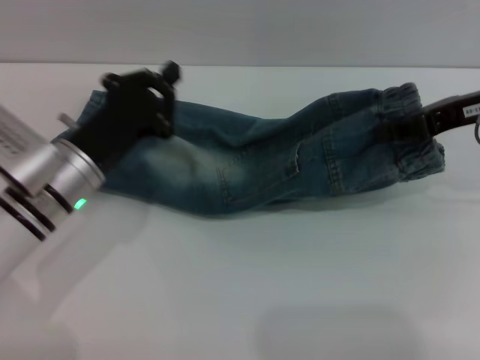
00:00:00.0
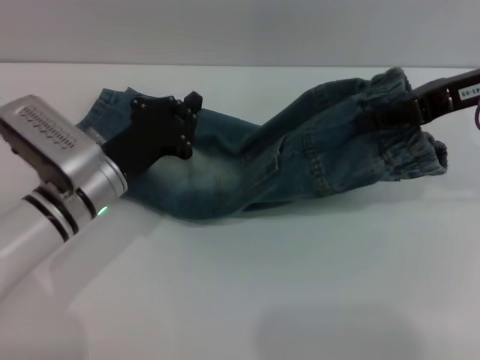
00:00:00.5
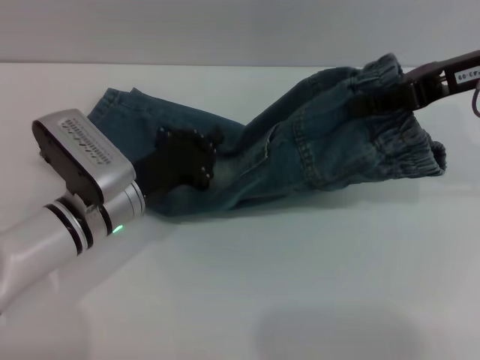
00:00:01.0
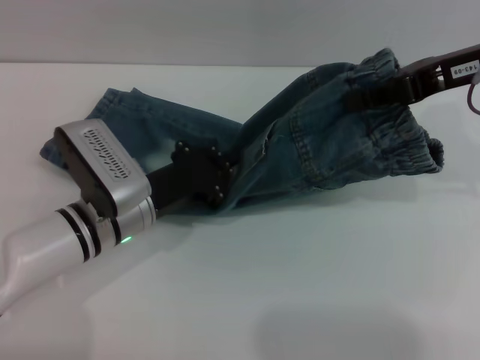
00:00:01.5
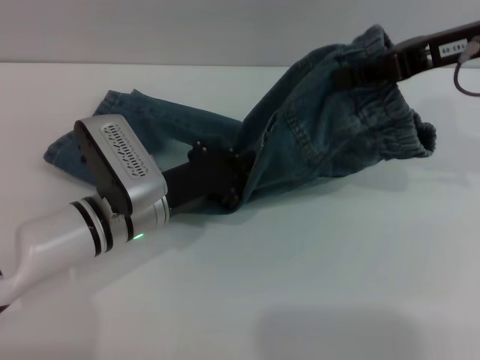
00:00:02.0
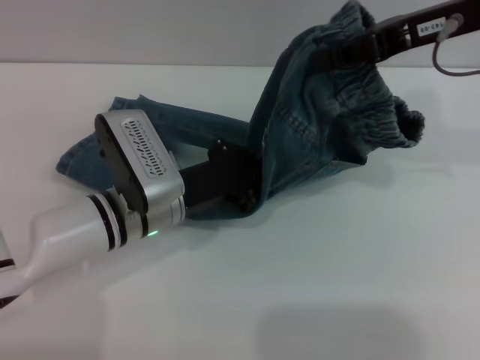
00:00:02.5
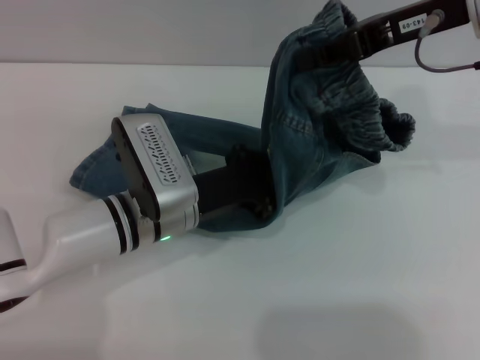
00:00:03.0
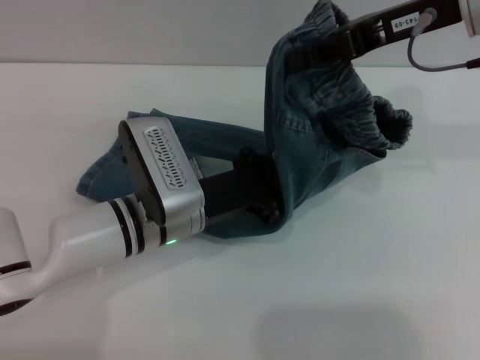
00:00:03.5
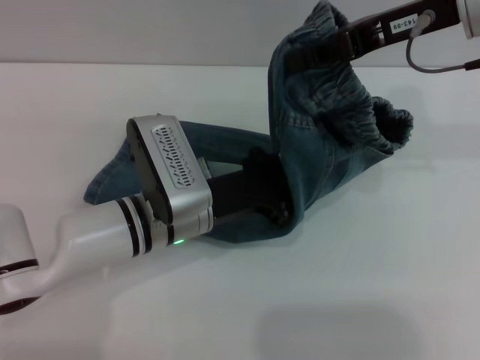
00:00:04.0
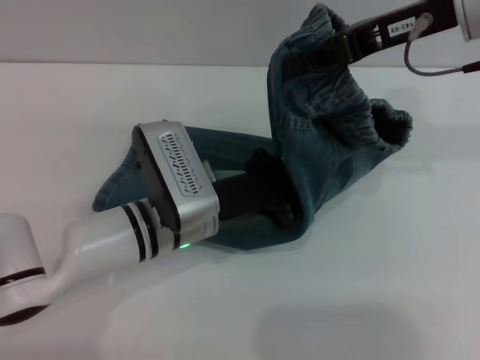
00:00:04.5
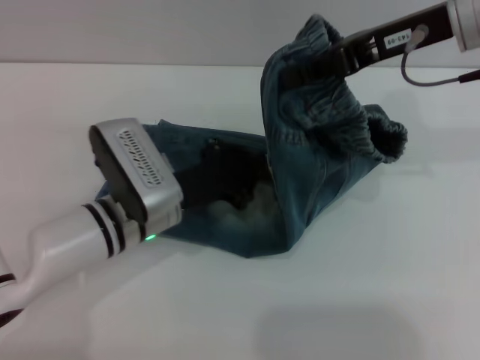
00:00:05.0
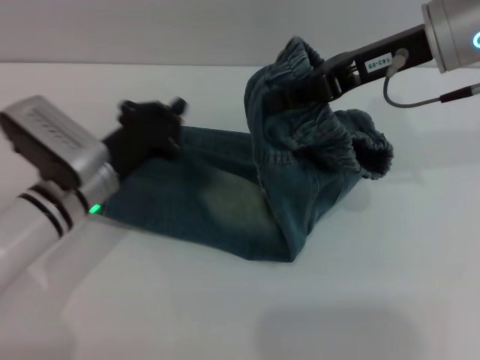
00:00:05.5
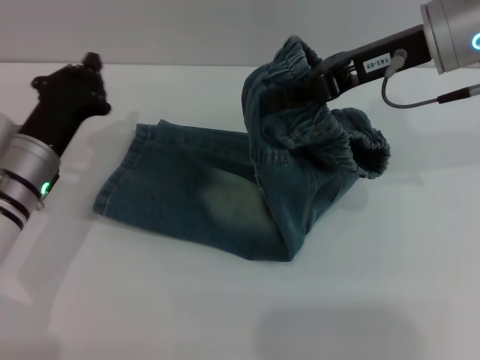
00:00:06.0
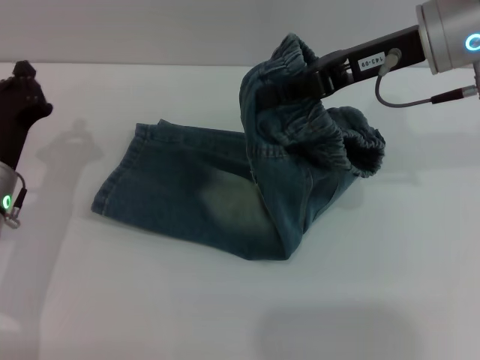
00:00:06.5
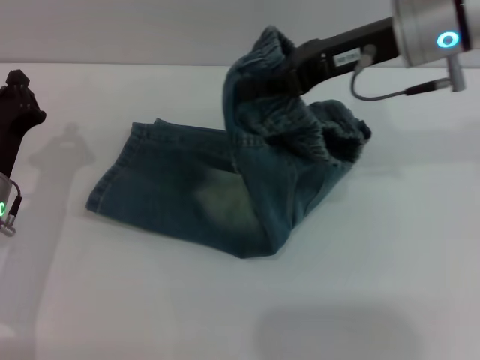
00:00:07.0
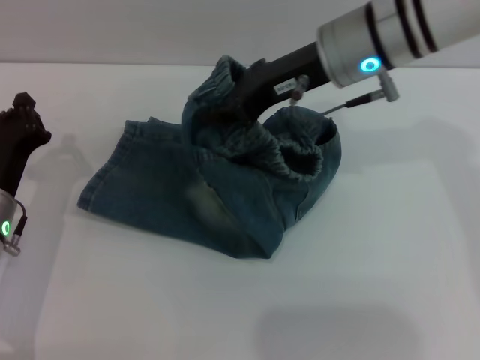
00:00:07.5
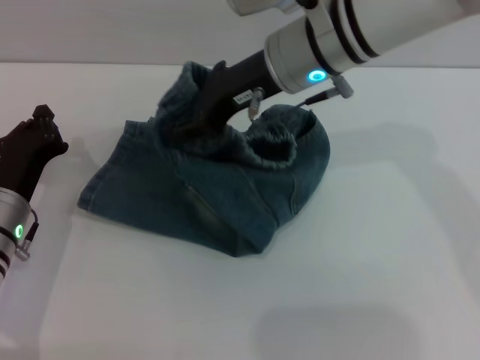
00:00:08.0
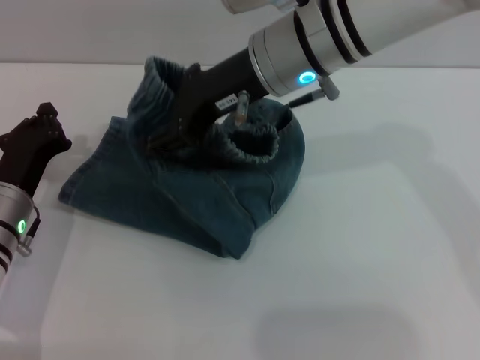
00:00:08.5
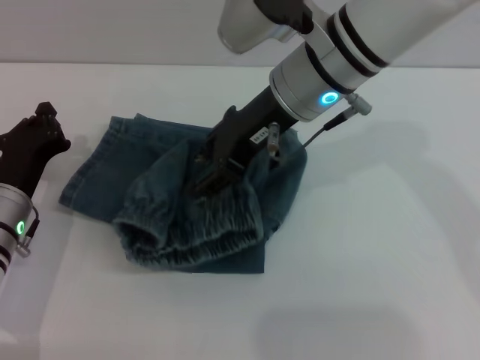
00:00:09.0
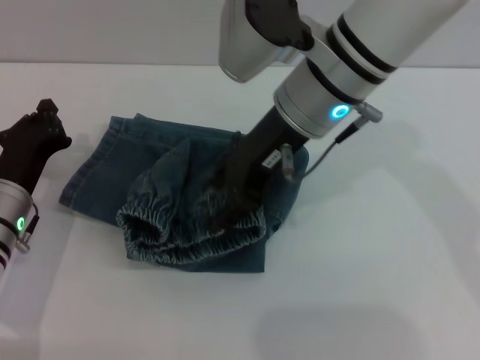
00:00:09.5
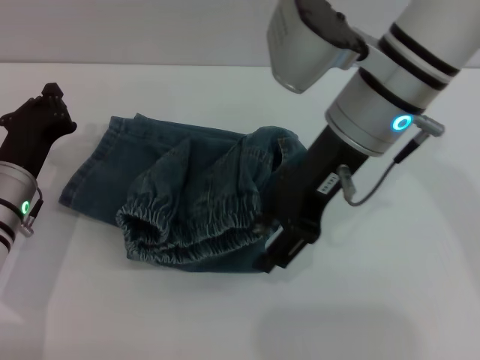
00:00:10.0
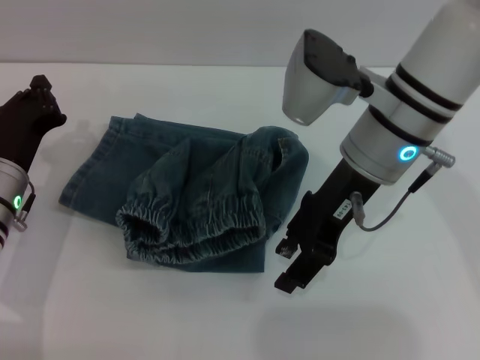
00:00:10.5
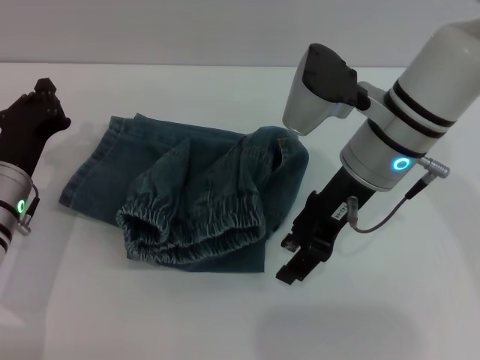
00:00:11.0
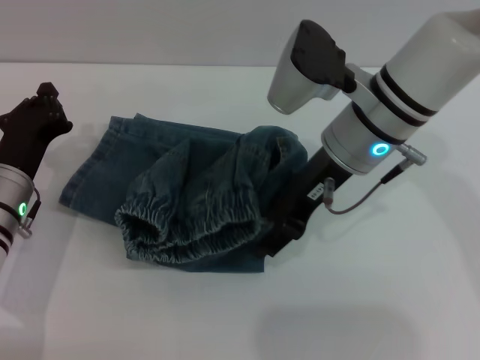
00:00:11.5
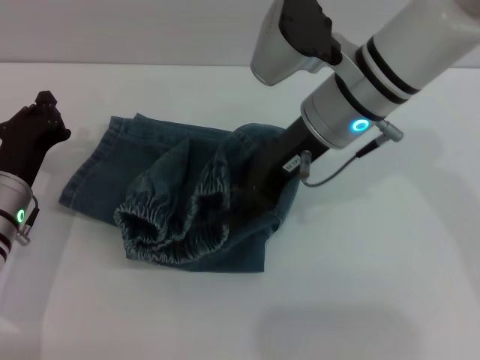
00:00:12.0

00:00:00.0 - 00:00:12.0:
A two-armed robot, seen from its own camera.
00:00:00.0 - 00:00:02.0: The left gripper heads to the right, covering about 5 cm. The right gripper moves upward, roughly 5 cm.
00:00:04.0 - 00:00:06.0: The left gripper is displaced to the left by about 15 cm.
00:00:06.0 - 00:00:08.0: The right gripper shifts roughly 10 cm to the left, and opens. The left gripper moves roughly 5 cm.
00:00:08.0 - 00:00:10.0: The right gripper is displaced backward by some 5 cm, and opens its fingers.

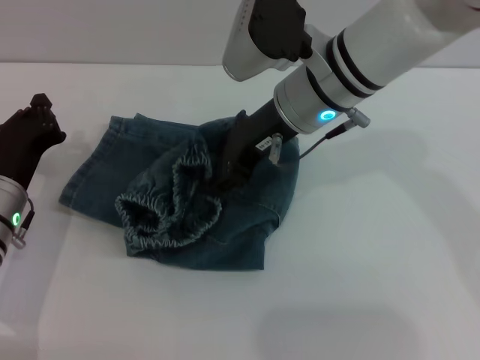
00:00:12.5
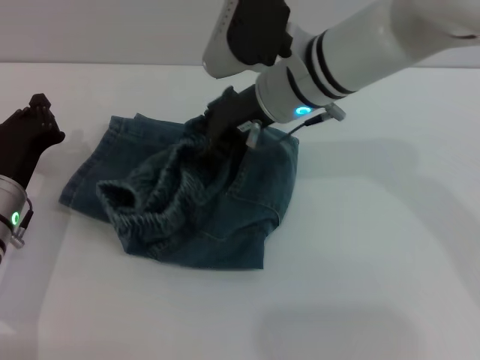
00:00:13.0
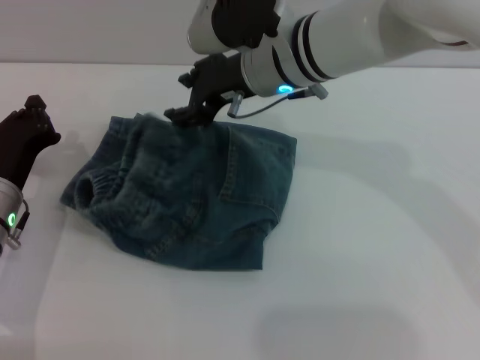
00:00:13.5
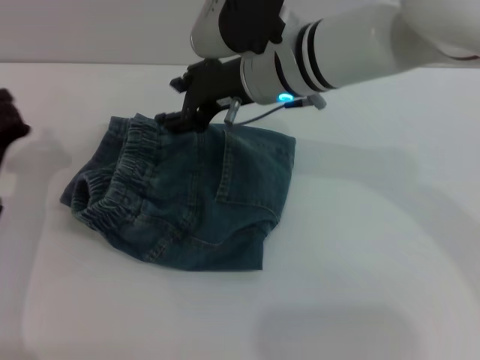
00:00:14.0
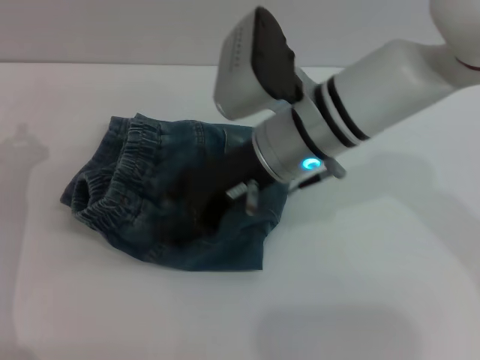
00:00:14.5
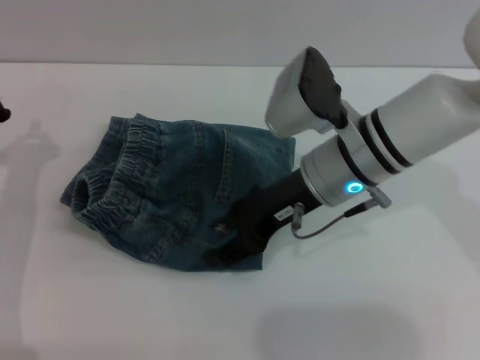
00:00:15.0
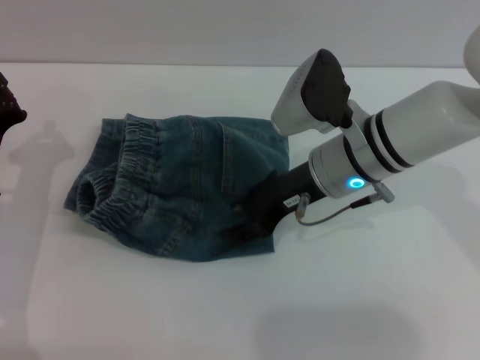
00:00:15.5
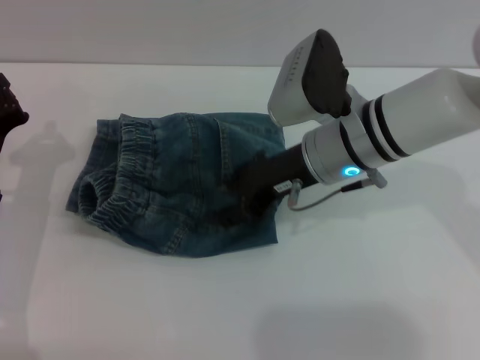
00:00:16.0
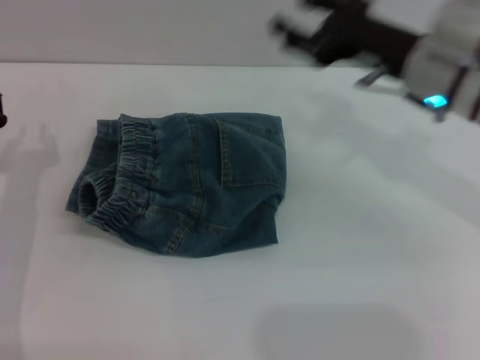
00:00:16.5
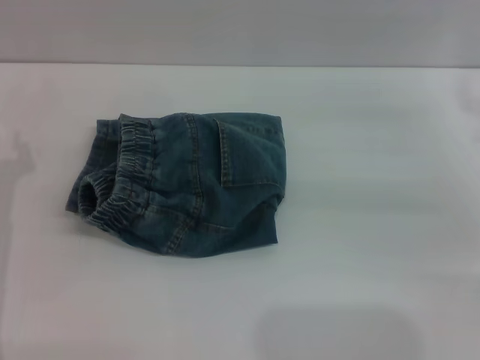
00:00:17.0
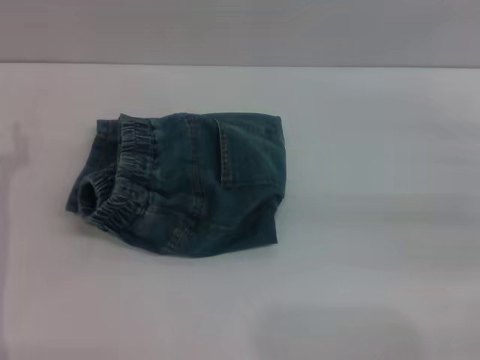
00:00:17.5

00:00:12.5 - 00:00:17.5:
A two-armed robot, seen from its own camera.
Step, 00:00:14.0 - 00:00:16.0: Place the folded trousers onto the center area with the right grippers.
00:00:12.5 - 00:00:15.0: The right gripper ends up about 5 cm from where it was.
00:00:15.0 - 00:00:17.5: The left gripper opens its fingers; the right gripper is displaced to the right by some 25 cm.

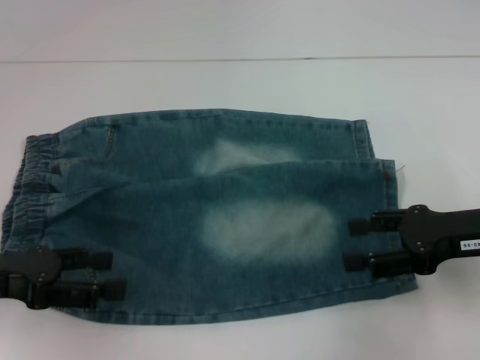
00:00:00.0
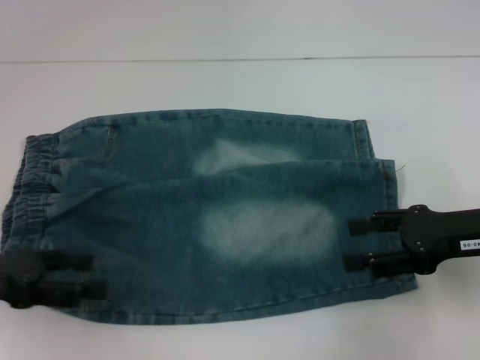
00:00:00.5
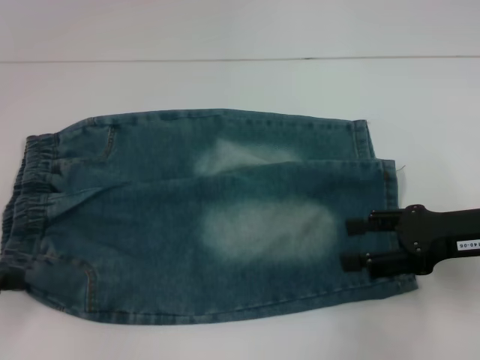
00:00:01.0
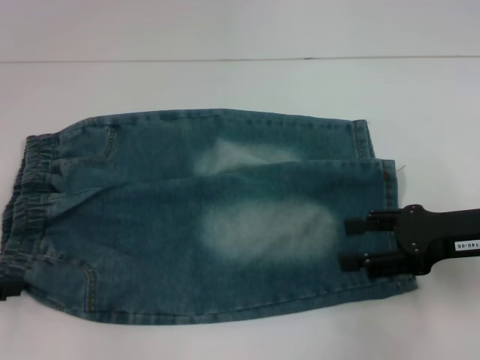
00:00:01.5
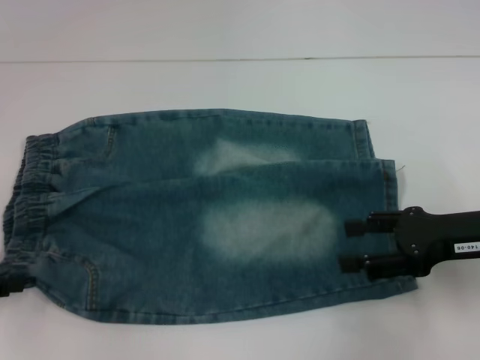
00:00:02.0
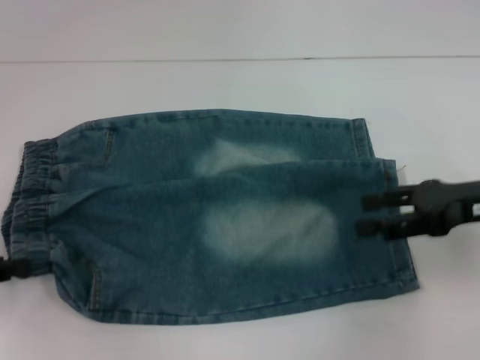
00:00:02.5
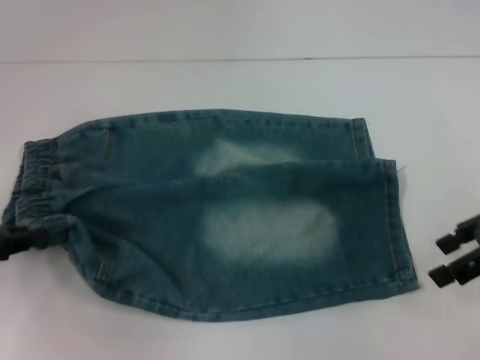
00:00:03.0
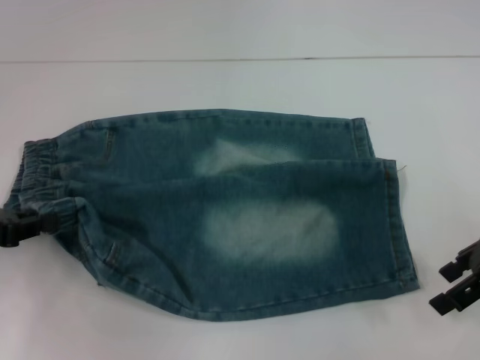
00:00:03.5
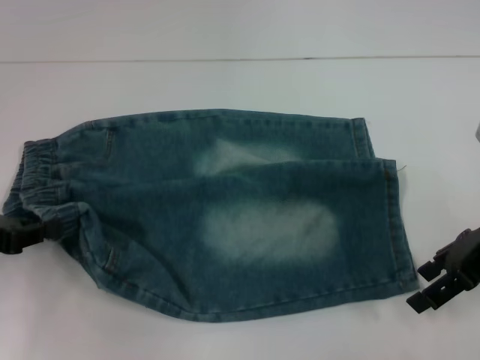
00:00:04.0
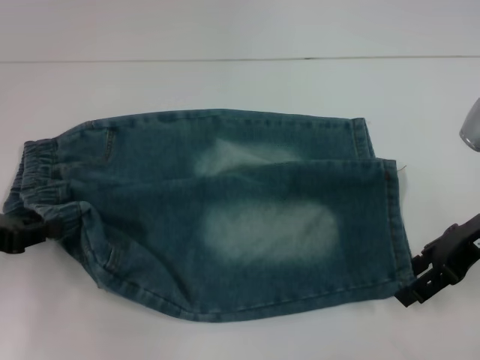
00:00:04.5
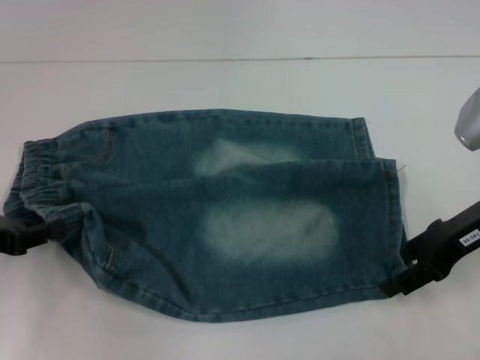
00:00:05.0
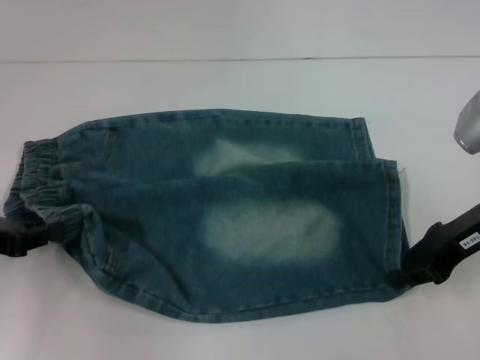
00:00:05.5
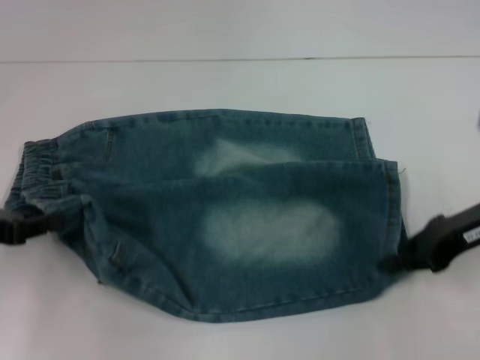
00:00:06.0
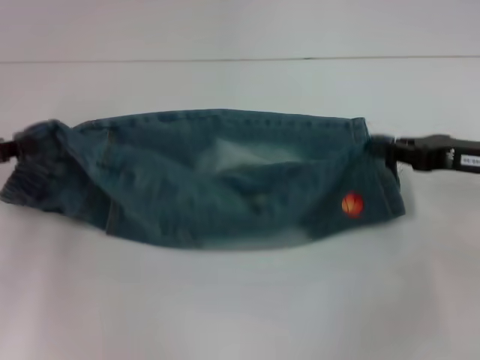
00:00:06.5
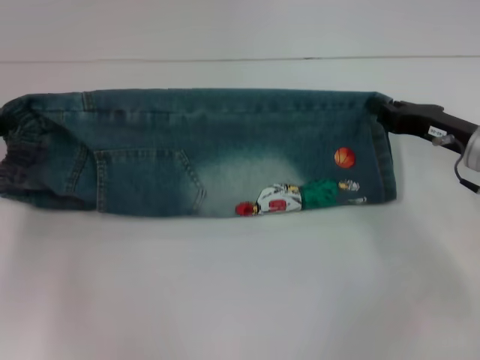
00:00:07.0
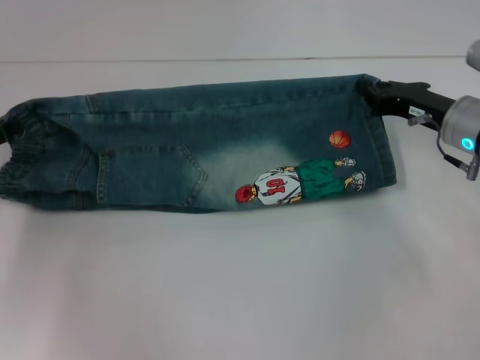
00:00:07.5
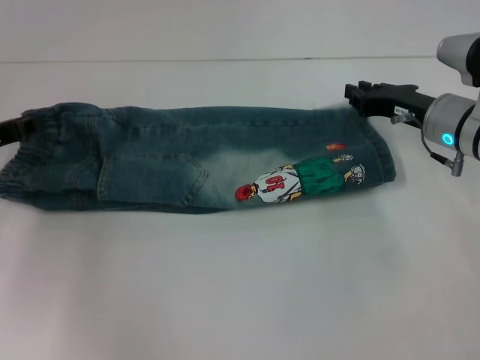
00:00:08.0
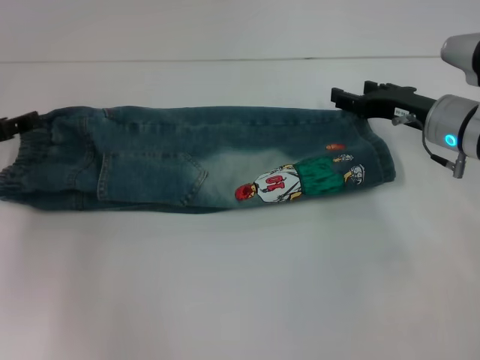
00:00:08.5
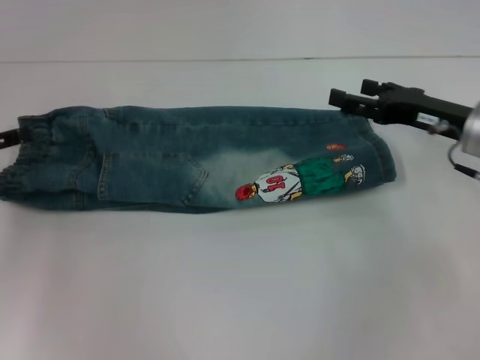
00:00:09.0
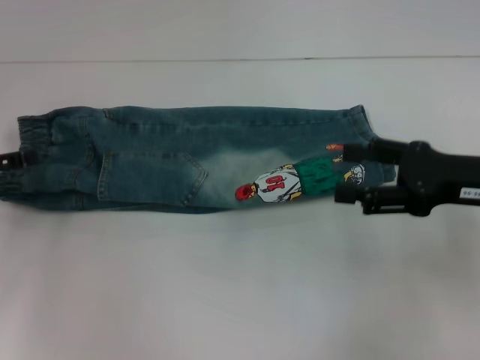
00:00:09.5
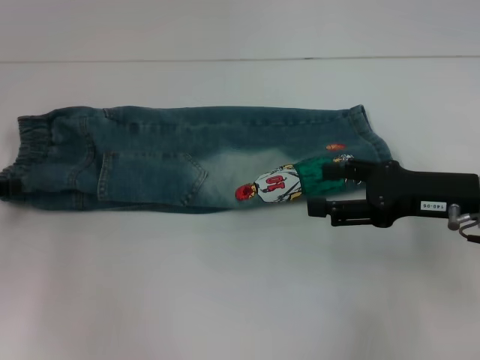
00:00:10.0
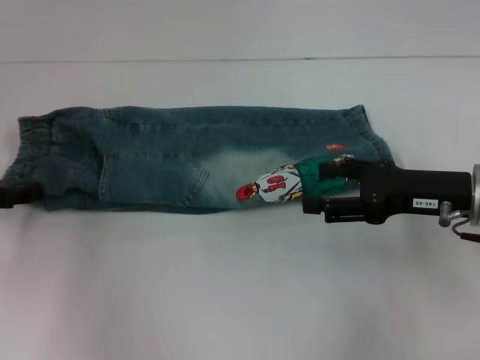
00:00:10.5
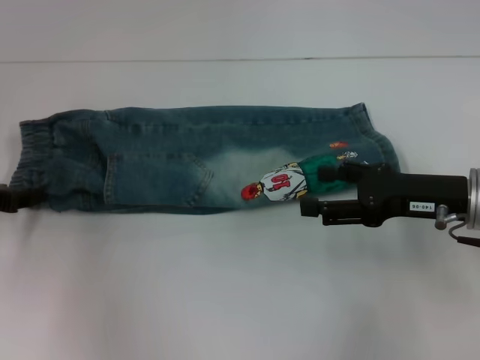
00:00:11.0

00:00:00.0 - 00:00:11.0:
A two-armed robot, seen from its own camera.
Step, 00:00:00.0 - 00:00:02.0: Hold the lower left waistband with your left hand.
Step, 00:00:02.5 - 00:00:05.5: Grab the lower right pant leg with your right hand.
Step, 00:00:06.0 - 00:00:08.5: Fold upward with your right hand.
00:00:00.0 - 00:00:02.0: The left gripper heads to the left, covering some 5 cm.
00:00:02.0 - 00:00:03.5: The right gripper changes place by some 5 cm. Meanwhile the left gripper closes.
00:00:03.5 - 00:00:05.5: The right gripper closes.
00:00:05.5 - 00:00:07.5: Both grippers travel together forward, roughly 5 cm.
00:00:07.5 - 00:00:09.0: The left gripper opens, while the right gripper opens.
00:00:09.0 - 00:00:11.0: The left gripper closes its fingers, while the right gripper moves backward, about 5 cm.
